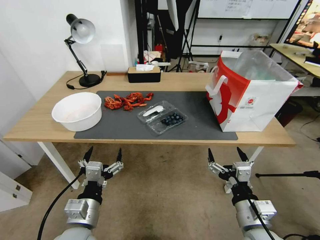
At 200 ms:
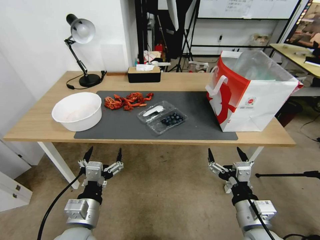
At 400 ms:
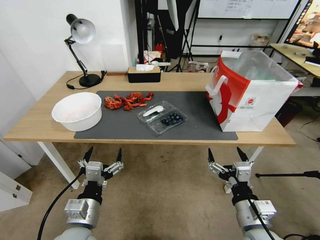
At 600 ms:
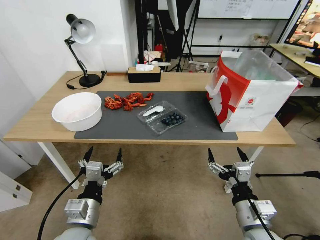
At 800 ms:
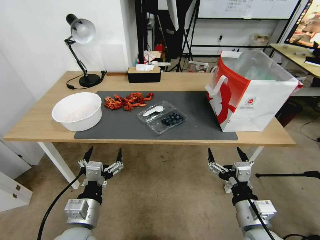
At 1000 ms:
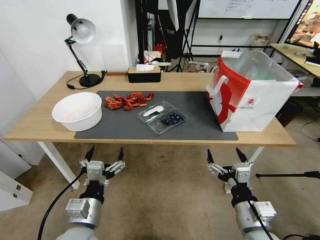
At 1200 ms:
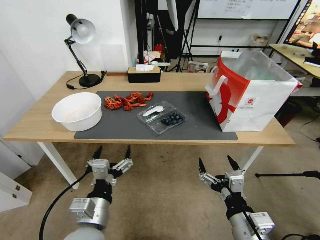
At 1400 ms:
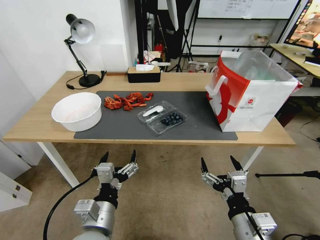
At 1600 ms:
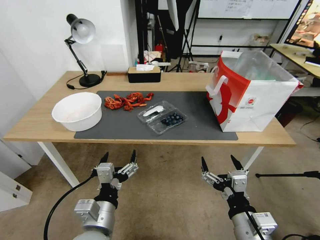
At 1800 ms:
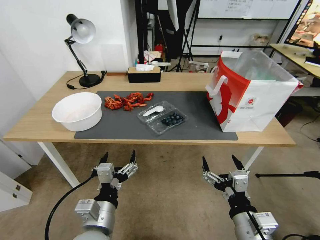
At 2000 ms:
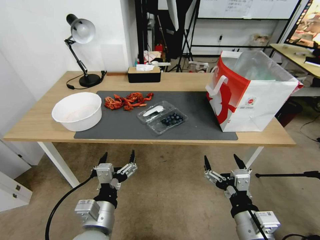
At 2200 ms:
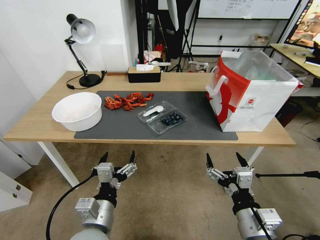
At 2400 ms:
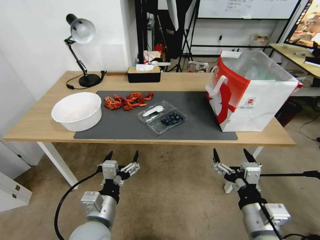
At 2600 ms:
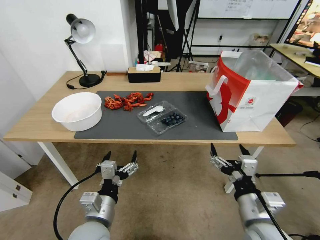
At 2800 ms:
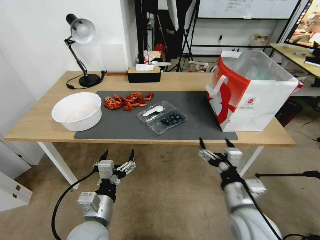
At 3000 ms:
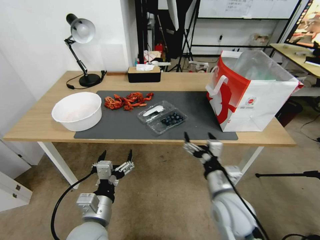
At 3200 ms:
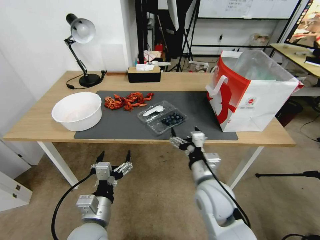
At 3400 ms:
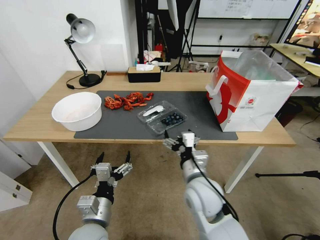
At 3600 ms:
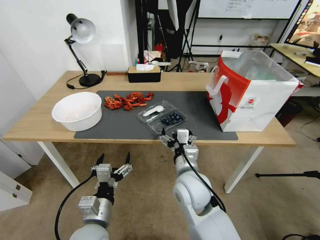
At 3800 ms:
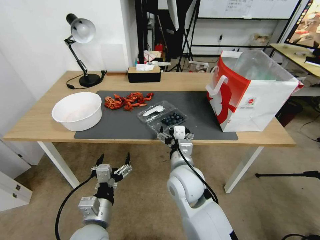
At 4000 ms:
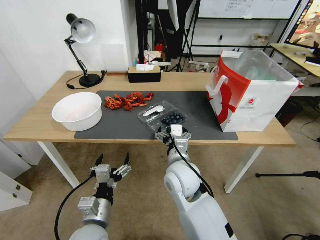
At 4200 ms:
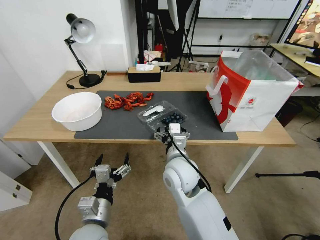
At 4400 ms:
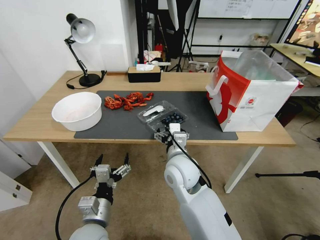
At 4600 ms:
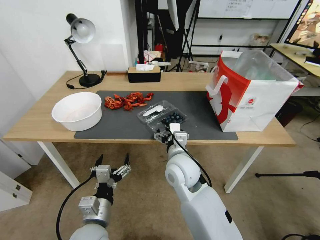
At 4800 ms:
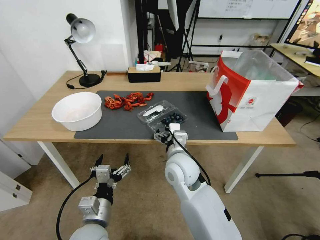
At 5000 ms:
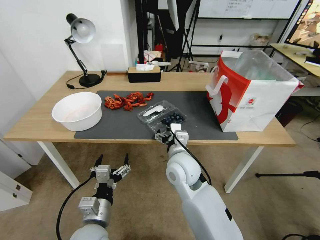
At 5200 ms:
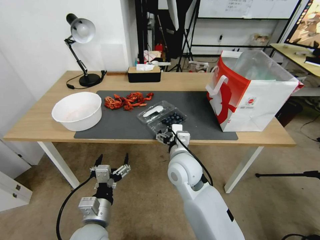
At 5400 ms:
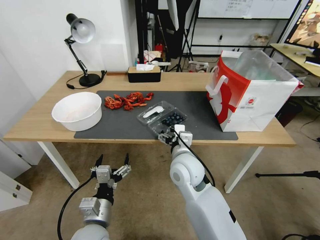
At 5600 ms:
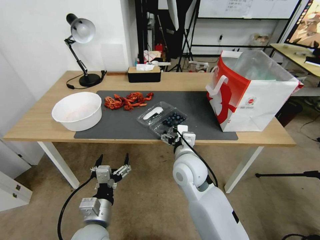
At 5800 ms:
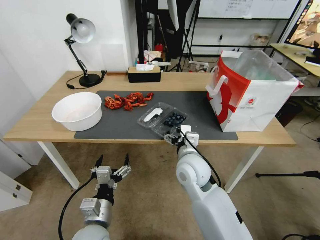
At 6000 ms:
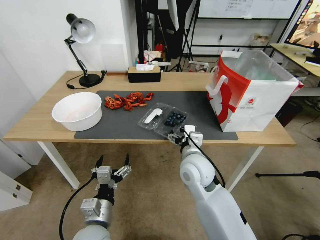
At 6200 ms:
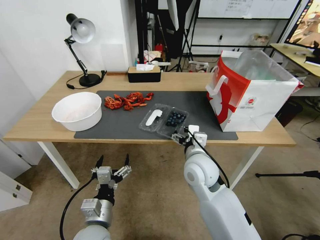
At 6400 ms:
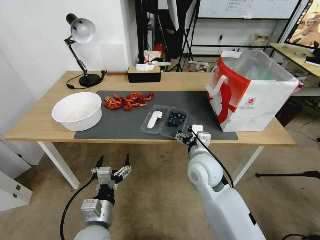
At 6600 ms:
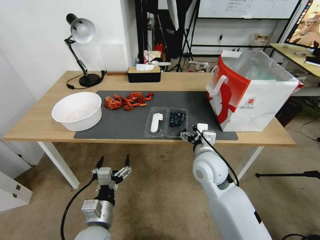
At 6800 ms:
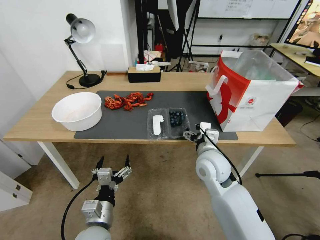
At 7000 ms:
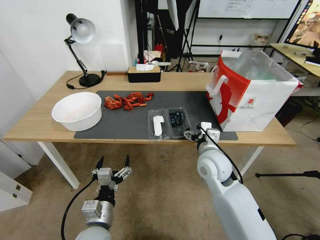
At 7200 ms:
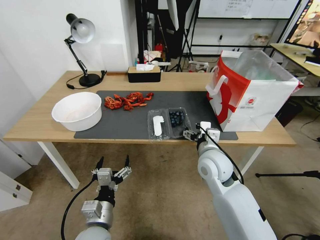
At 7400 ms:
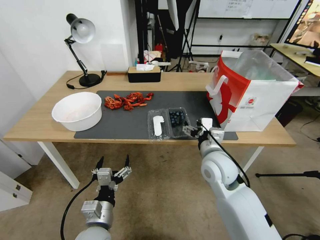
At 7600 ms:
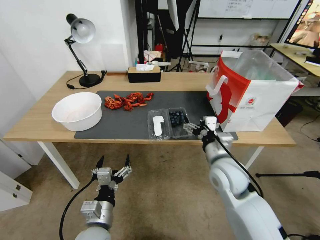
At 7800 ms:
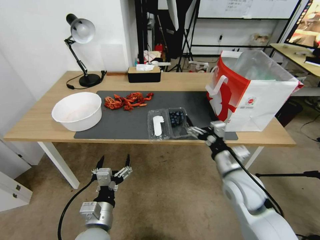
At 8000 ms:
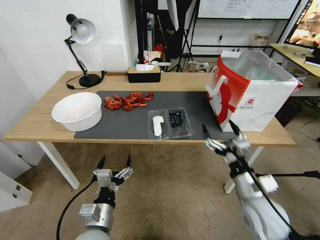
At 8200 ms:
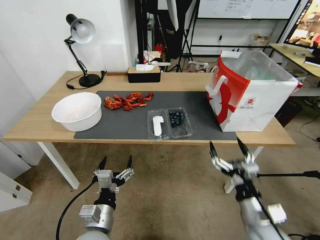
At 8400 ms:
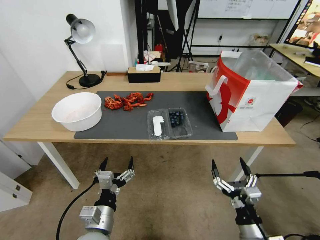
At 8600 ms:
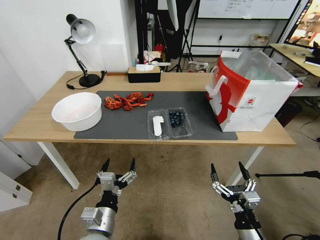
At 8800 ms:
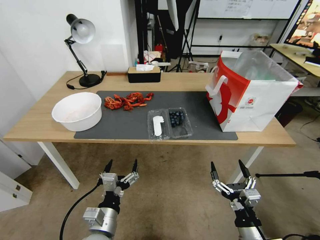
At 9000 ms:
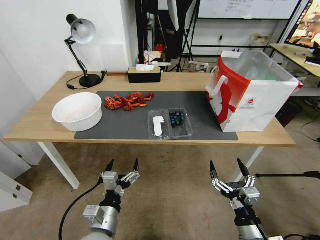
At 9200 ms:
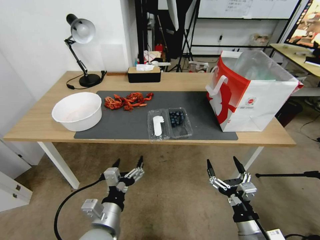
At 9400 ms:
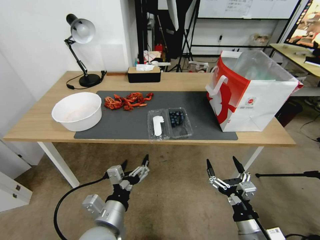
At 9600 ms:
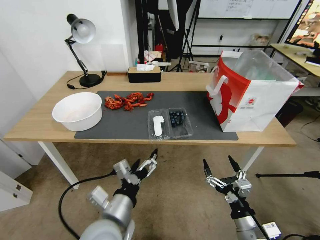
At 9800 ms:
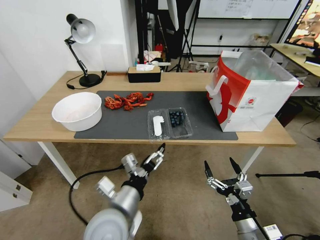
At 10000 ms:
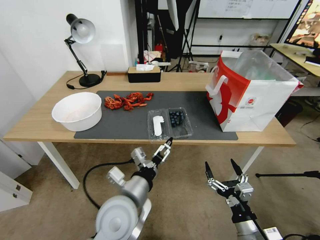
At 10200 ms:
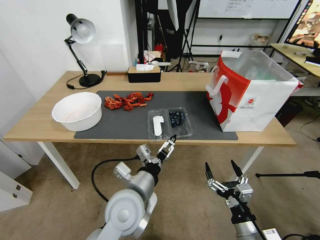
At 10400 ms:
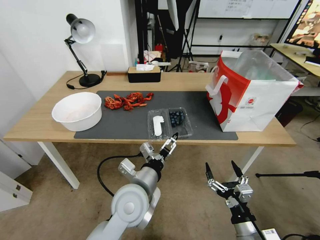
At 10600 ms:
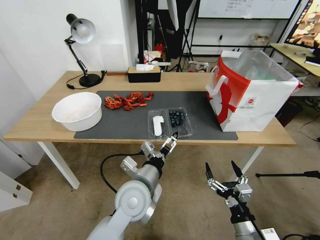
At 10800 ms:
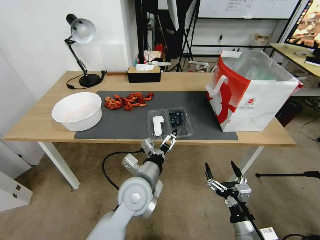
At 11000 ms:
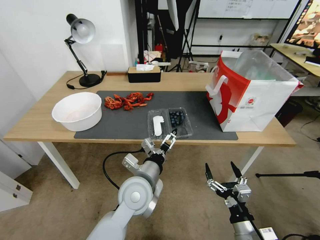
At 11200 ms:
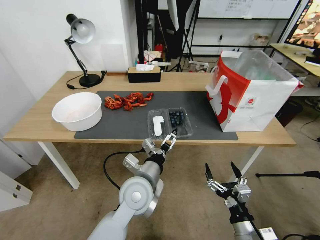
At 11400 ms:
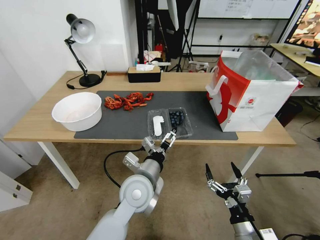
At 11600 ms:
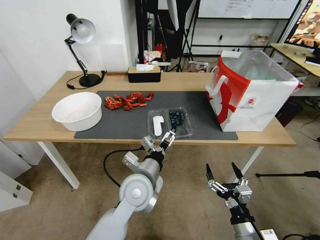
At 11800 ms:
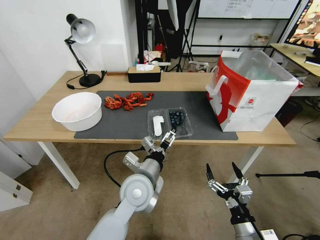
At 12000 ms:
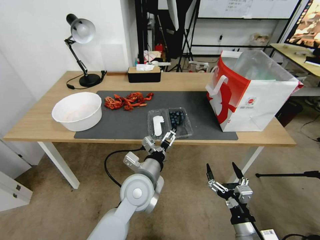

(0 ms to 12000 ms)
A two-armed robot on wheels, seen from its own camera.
Task of the whole recording: Close the takeout container lid, then place the container into the takeout bag.
1600 ms - 3000 ms: The right gripper heads forward, covering roughly 10 cm.
3000 ms - 4400 ms: The right gripper goes about 15 cm to the left and forward.
4400 ms - 6000 ms: The grippers stay close to where they were, moving slightly.
6000 ms - 7600 ms: The right gripper moves to the right, roughly 10 cm.
7600 ms - 9000 ms: The right gripper moves backward and downward, about 25 cm.
9000 ms - 10400 ms: The left gripper goes some 15 cm forward, to the right and upward.
10400 ms - 12000 ms: The grippers move only a little.

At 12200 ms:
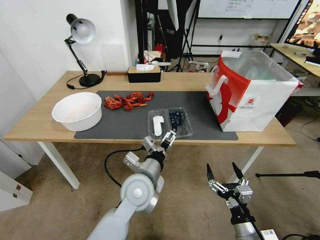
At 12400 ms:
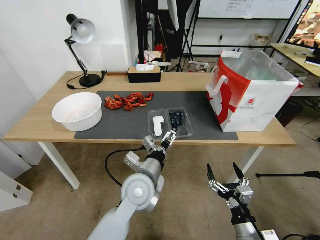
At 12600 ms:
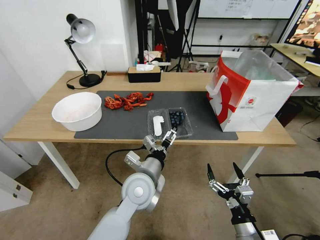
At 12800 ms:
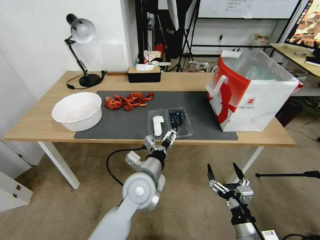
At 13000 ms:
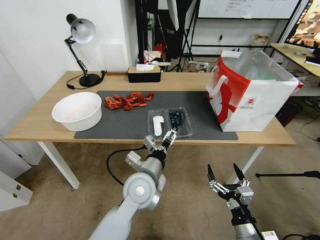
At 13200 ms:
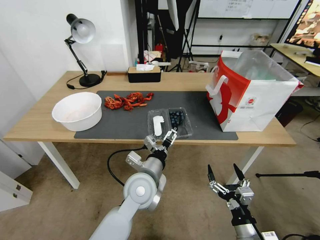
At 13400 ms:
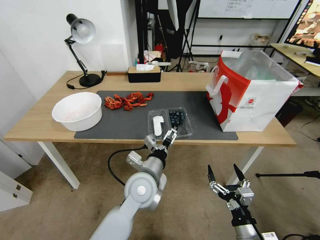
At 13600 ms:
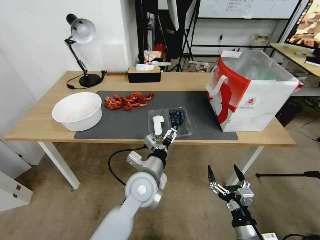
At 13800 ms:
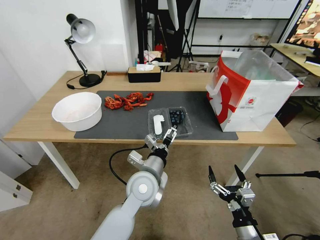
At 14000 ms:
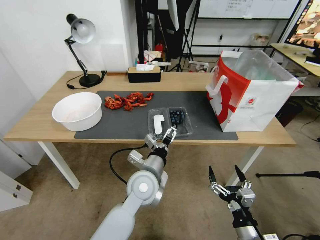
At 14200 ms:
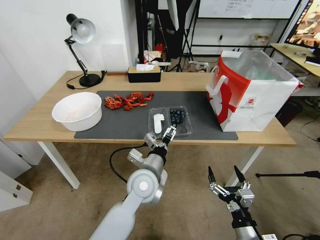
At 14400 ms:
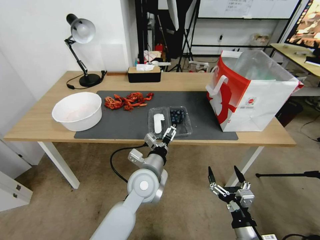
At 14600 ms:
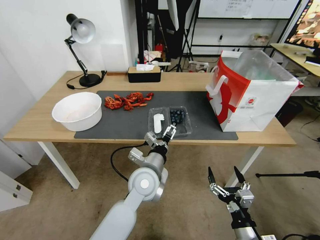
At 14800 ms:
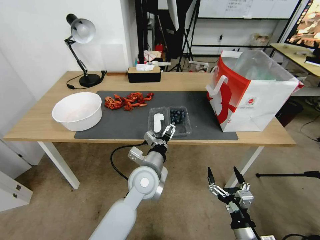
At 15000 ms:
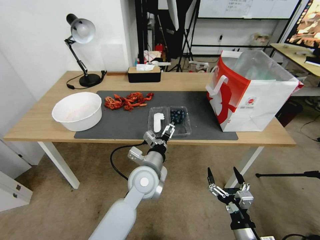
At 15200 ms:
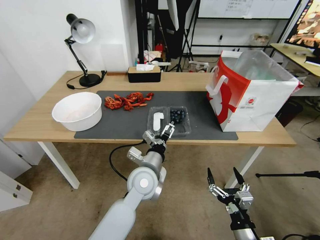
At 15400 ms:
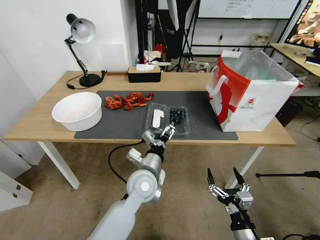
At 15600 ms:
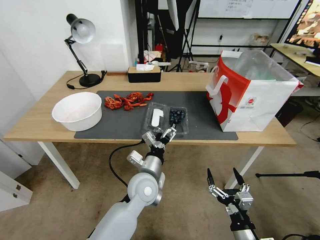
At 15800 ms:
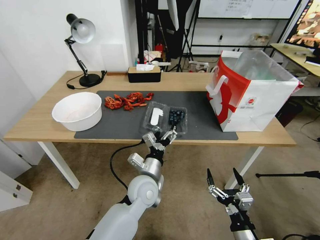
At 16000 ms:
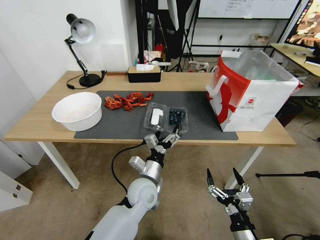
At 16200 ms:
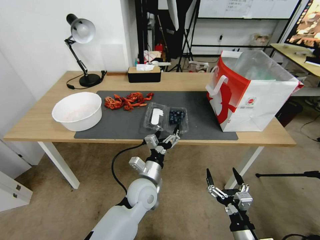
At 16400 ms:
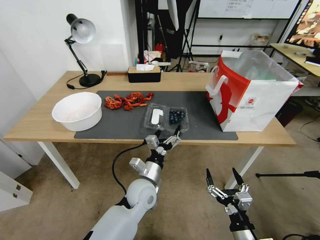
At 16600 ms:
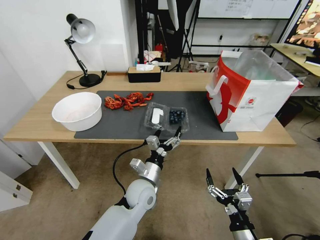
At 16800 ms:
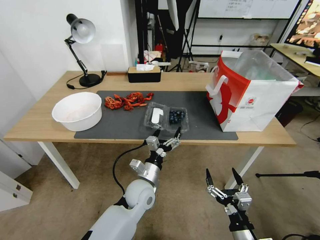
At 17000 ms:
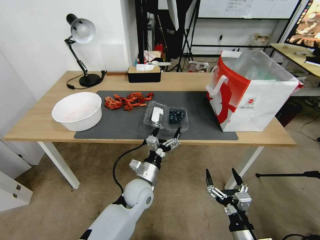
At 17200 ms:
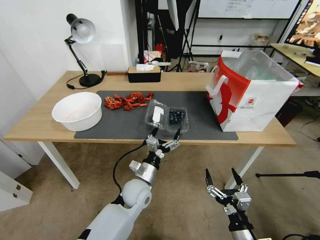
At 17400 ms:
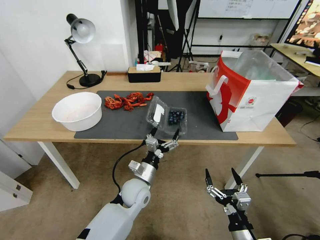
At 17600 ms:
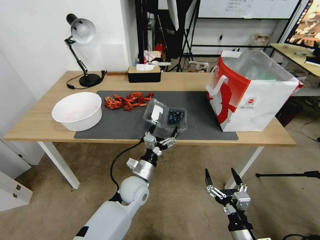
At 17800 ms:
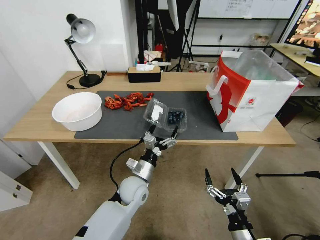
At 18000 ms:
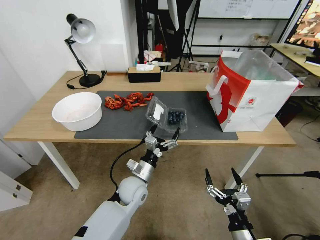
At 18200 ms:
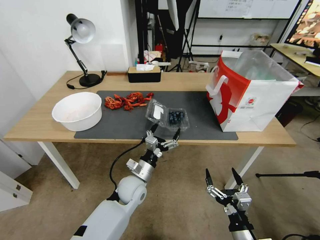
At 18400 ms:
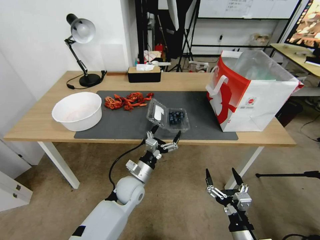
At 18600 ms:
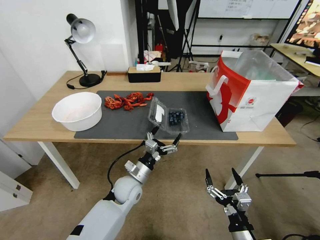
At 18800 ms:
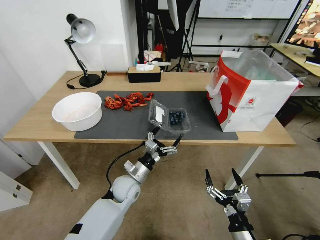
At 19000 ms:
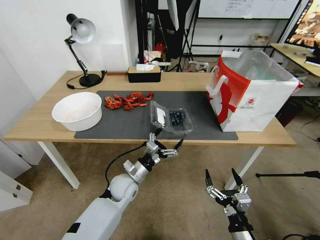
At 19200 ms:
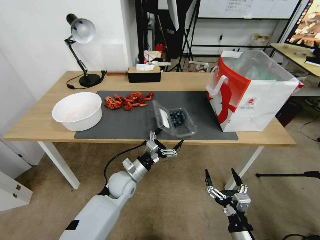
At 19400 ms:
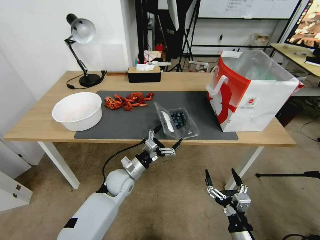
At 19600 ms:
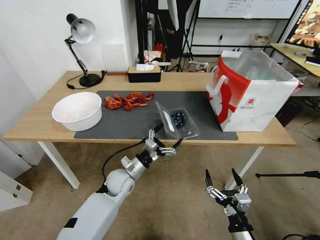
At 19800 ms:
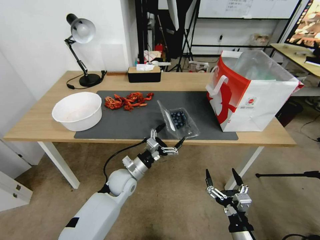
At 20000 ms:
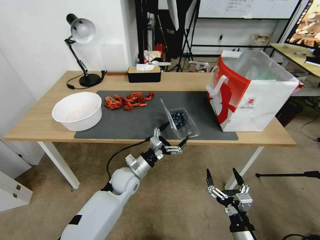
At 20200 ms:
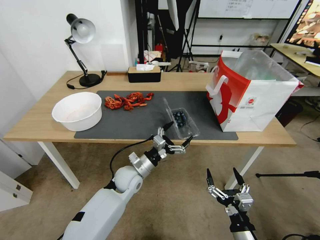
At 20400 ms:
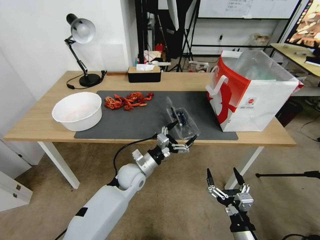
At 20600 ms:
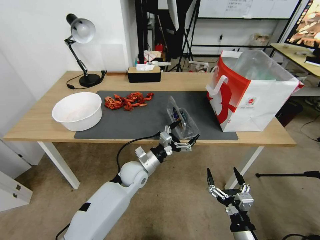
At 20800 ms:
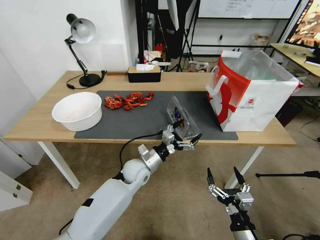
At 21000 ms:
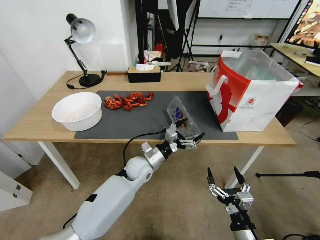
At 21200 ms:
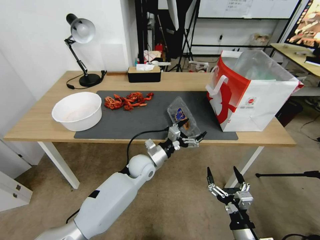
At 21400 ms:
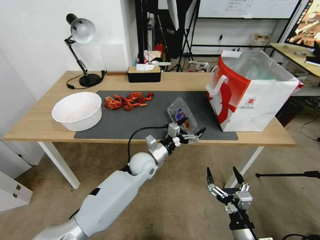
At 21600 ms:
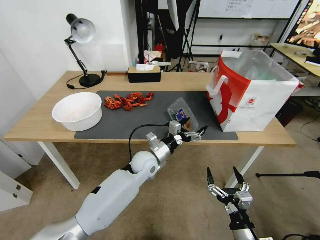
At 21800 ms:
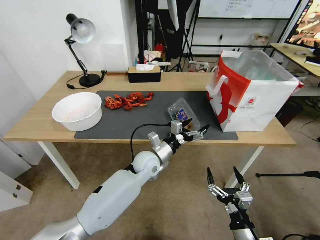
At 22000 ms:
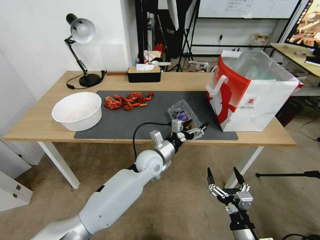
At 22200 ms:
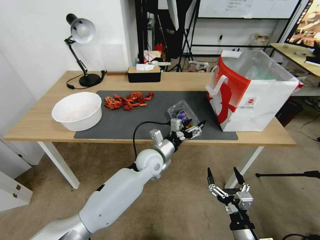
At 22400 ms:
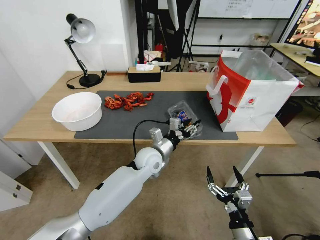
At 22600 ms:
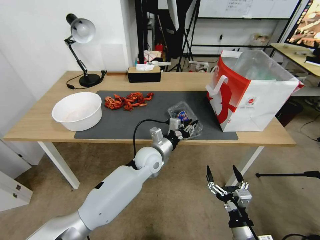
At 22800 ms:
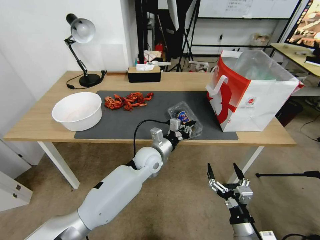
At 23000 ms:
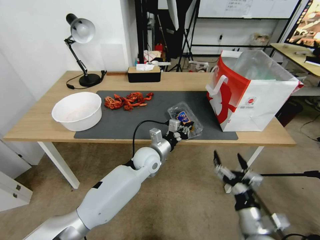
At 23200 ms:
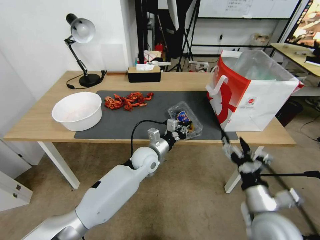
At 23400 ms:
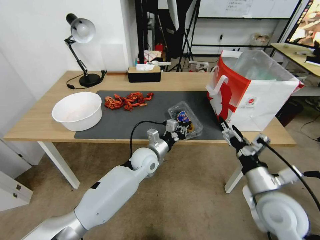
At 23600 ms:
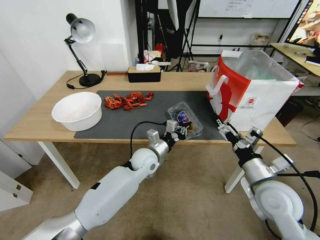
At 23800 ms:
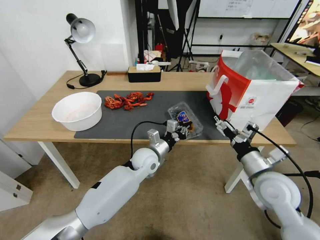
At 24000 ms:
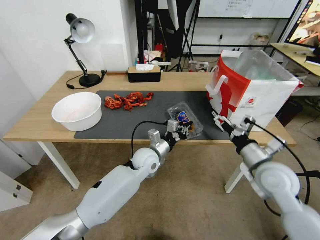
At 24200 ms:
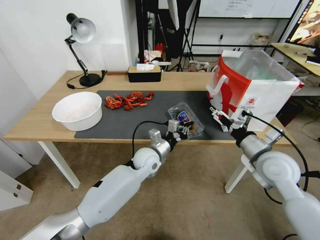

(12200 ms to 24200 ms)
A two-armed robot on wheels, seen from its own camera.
Task of the whole recording: Close the takeout container lid, then place the container into the takeout bag.
12200 ms - 15200 ms: There are only small adjustments of the grippers.
15200 ms - 16600 ms: The left gripper travels downward by about 5 cm.
18200 ms - 19800 ms: The grippers stay close to where they were, moving slightly.
19800 ms - 21200 ms: The left gripper is displaced to the right by about 5 cm.
21200 ms - 22600 ms: The left gripper changes place by some 5 cm, and closes up.
22600 ms - 24200 ms: The right gripper travels forward and upward by about 25 cm.
